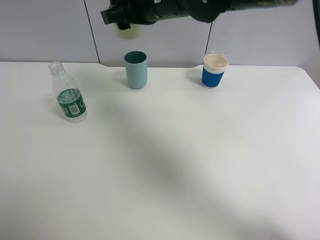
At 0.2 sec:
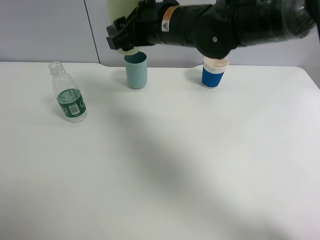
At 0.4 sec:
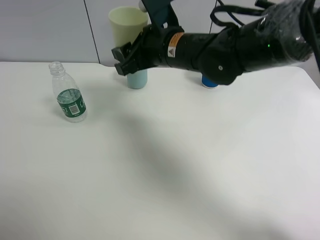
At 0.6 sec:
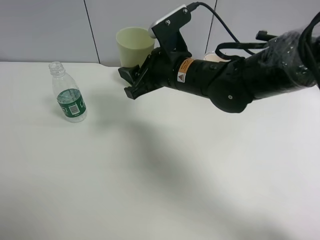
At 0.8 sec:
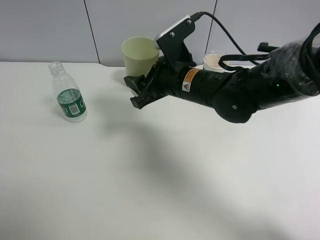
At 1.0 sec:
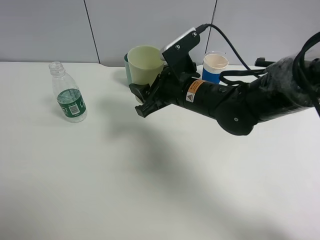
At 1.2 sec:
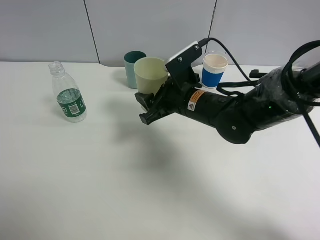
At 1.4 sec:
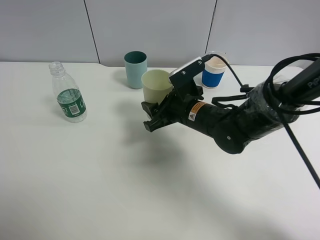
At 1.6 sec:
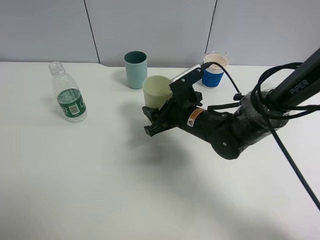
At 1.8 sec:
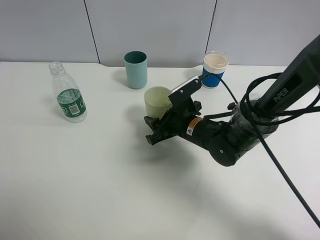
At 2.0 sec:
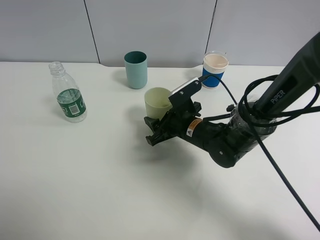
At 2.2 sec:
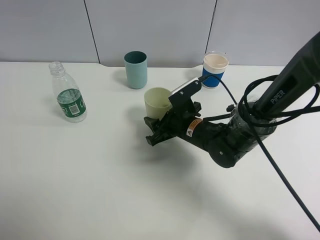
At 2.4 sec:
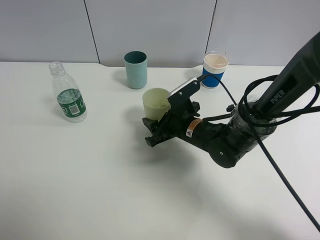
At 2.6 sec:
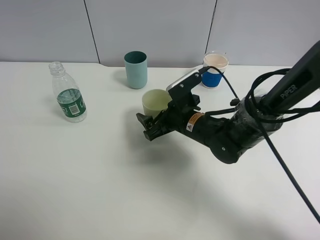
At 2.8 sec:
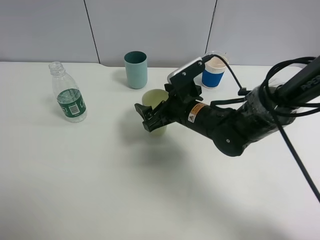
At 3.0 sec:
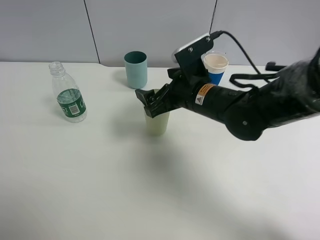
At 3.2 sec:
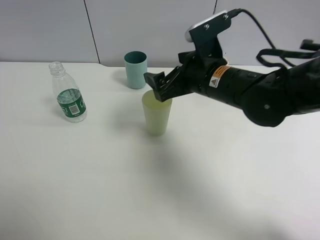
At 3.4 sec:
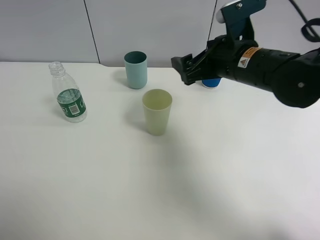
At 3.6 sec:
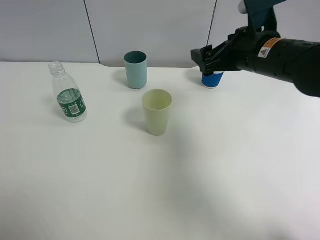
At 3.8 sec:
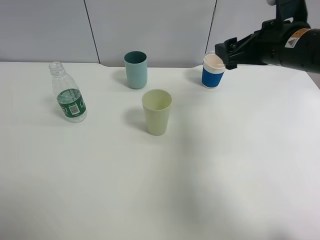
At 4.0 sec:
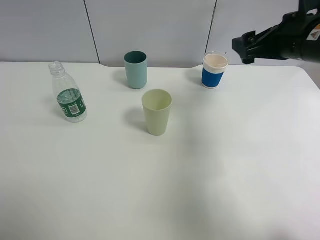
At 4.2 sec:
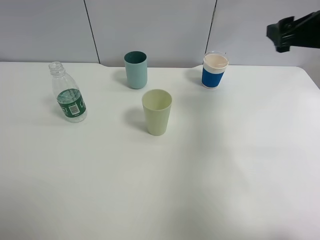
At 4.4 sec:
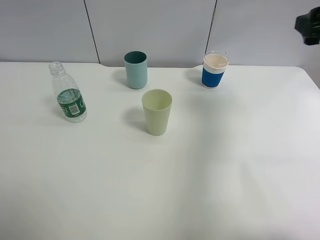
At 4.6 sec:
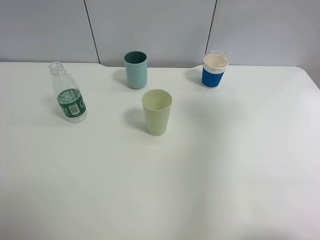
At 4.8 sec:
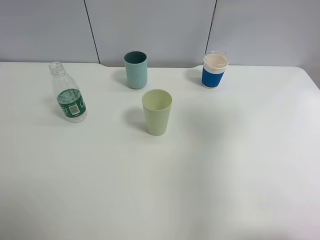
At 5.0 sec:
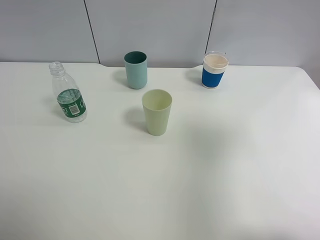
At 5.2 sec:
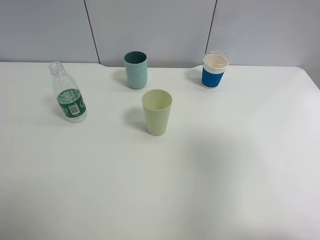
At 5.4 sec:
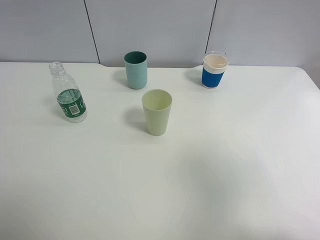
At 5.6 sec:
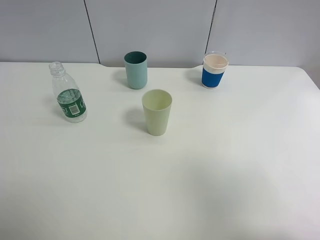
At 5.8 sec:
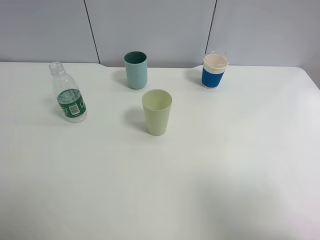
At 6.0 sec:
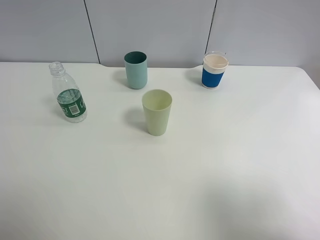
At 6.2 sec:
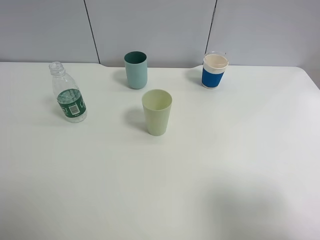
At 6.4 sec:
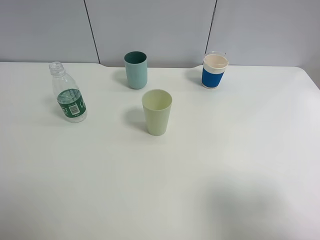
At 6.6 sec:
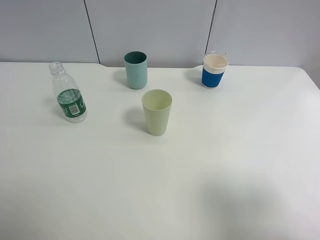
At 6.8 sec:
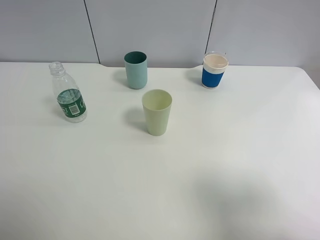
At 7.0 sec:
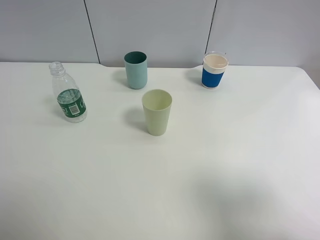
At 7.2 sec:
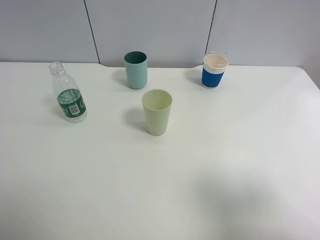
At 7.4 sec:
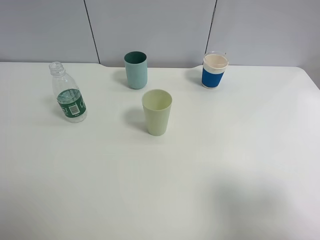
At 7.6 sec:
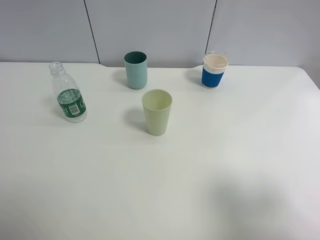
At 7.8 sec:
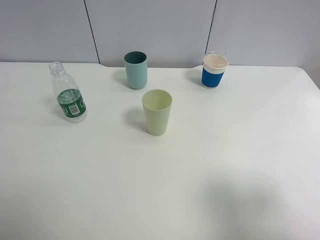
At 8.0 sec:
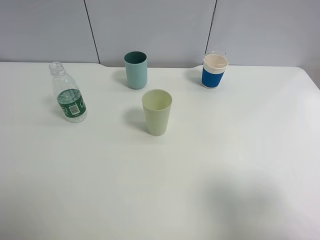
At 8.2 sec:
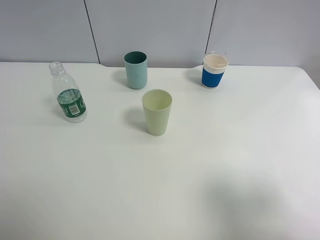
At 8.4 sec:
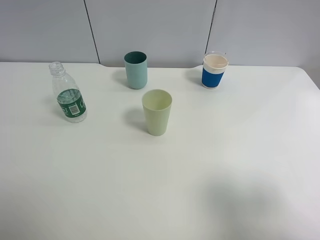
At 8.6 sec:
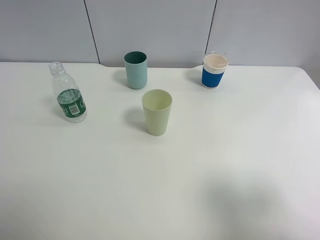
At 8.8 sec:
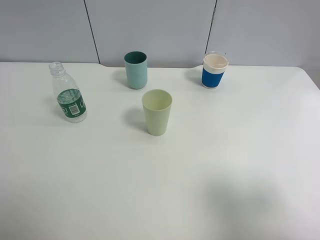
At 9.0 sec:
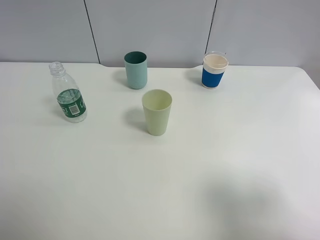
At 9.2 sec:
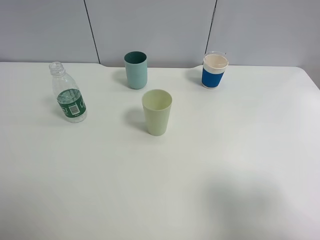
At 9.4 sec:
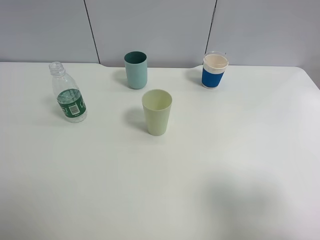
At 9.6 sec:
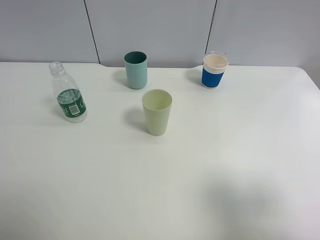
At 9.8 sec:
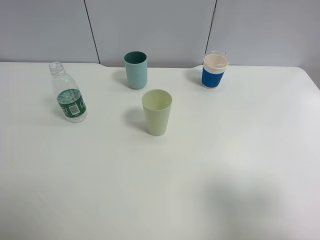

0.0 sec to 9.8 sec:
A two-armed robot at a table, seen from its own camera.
Task of the whole recording: use a clamp to hold the bottle of the drink, pour the beverage into a random cup, then clamp the cup containing the drink and pour the drink into another random cup.
Step, 0.0 sec to 3.0 sec: Place the green plastic cup on the table with right gripper.
0.0 sec to 1.4 sec: The right gripper heads downward, covering roughly 20 cm.
1.4 sec to 2.8 sec: The right gripper opens.
2.8 sec to 4.2 sec: The right gripper goes some 30 cm to the right and upward.
4.2 sec to 5.6 sec: The right gripper moves backward, about 25 cm.
8.4 sec to 9.8 sec: The two grippers keep their place.

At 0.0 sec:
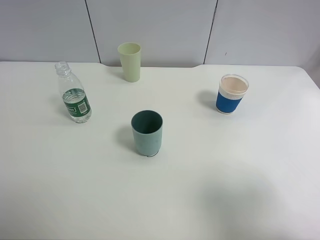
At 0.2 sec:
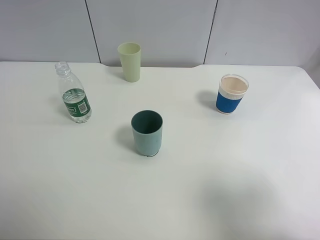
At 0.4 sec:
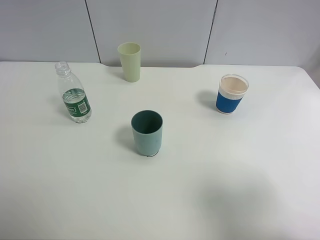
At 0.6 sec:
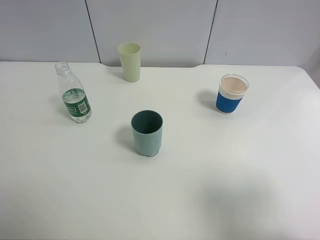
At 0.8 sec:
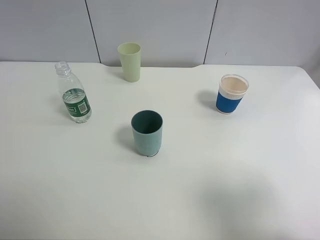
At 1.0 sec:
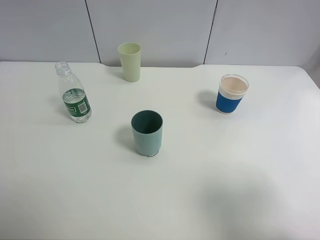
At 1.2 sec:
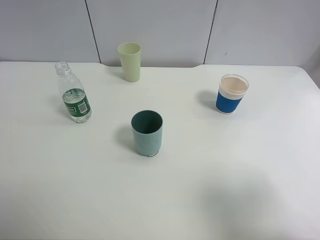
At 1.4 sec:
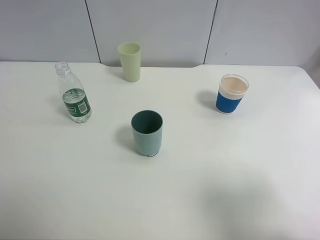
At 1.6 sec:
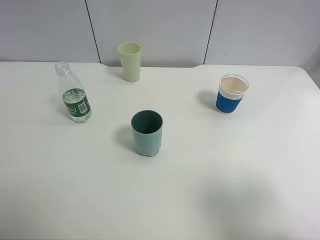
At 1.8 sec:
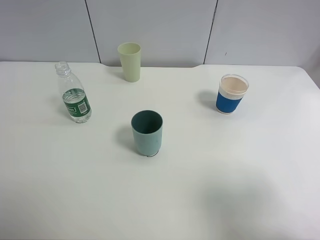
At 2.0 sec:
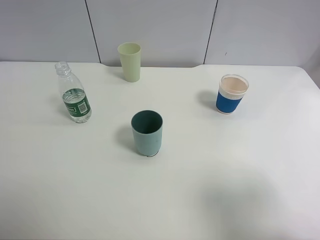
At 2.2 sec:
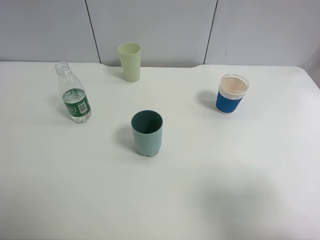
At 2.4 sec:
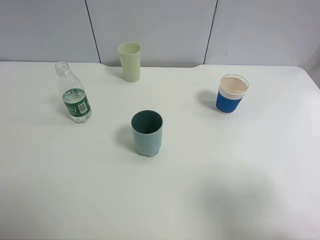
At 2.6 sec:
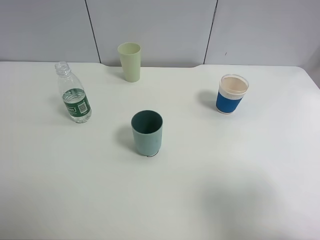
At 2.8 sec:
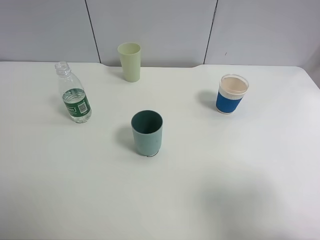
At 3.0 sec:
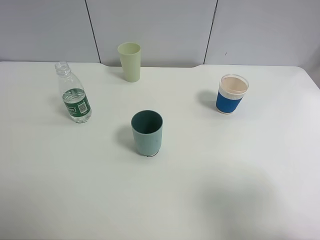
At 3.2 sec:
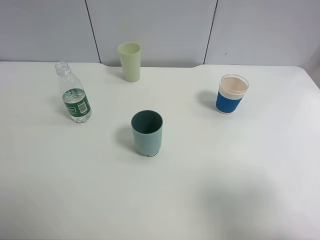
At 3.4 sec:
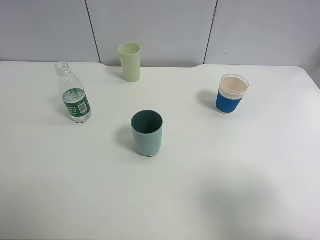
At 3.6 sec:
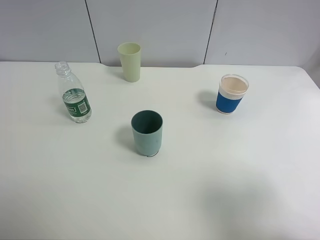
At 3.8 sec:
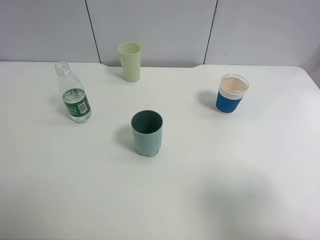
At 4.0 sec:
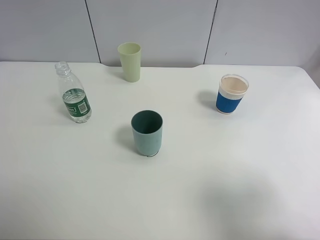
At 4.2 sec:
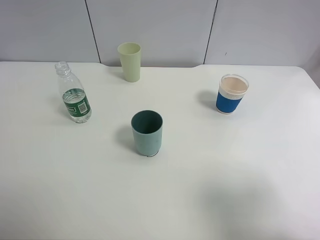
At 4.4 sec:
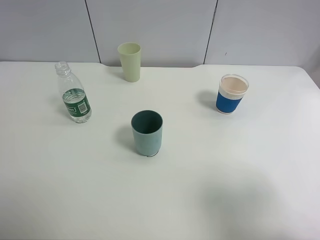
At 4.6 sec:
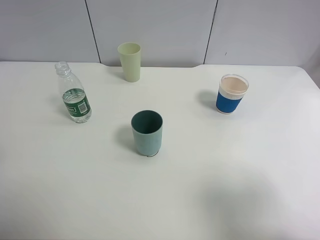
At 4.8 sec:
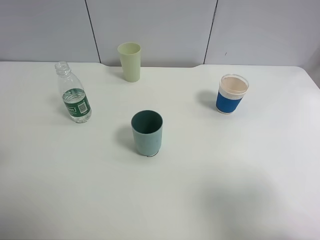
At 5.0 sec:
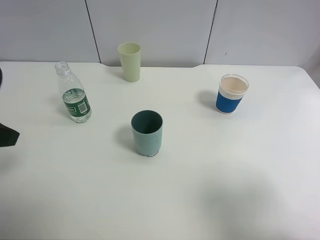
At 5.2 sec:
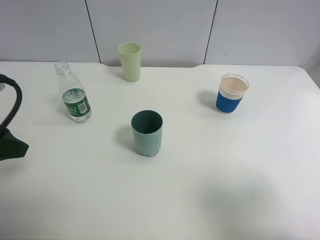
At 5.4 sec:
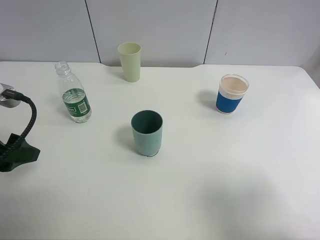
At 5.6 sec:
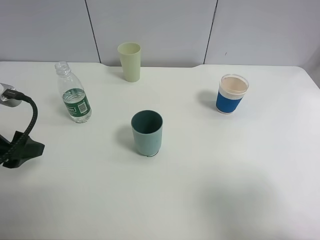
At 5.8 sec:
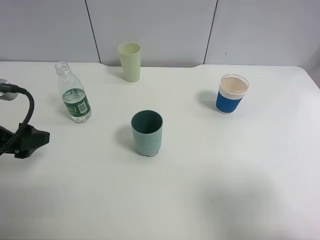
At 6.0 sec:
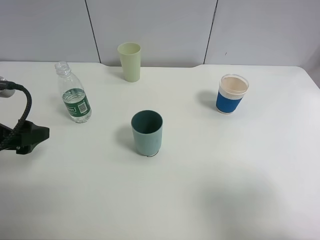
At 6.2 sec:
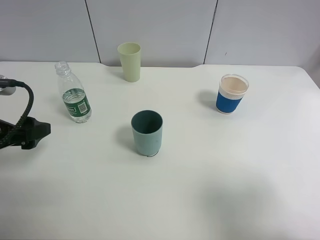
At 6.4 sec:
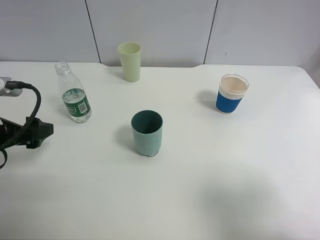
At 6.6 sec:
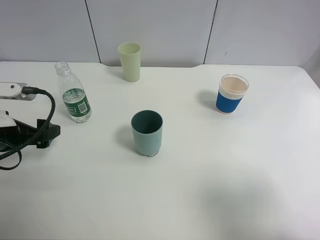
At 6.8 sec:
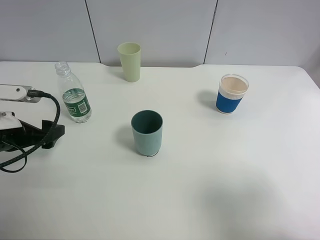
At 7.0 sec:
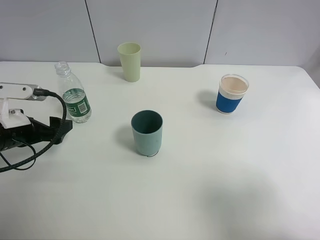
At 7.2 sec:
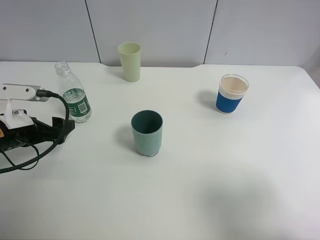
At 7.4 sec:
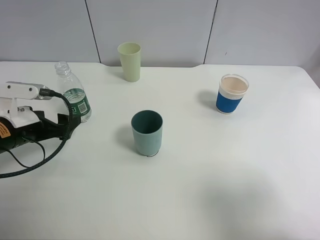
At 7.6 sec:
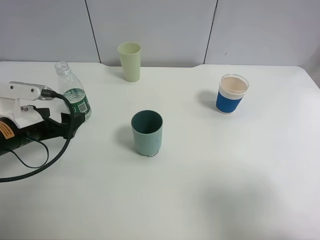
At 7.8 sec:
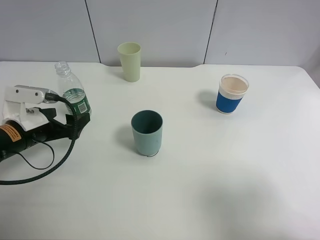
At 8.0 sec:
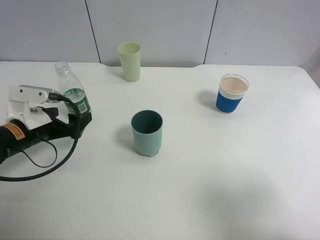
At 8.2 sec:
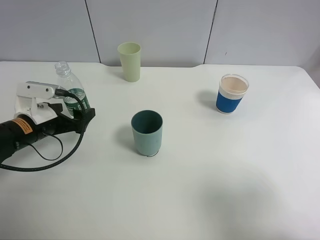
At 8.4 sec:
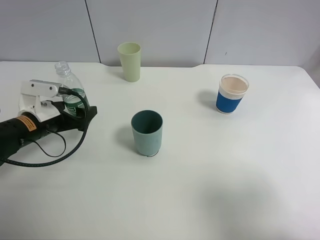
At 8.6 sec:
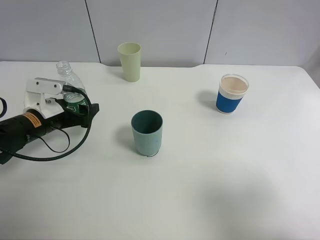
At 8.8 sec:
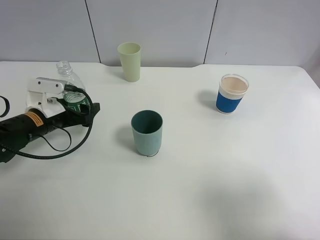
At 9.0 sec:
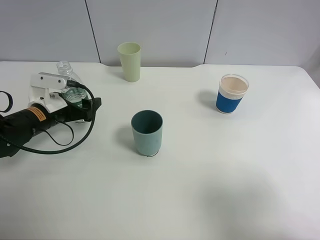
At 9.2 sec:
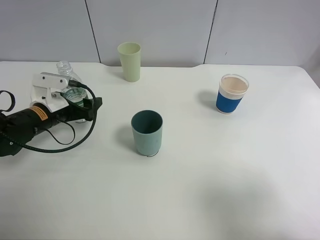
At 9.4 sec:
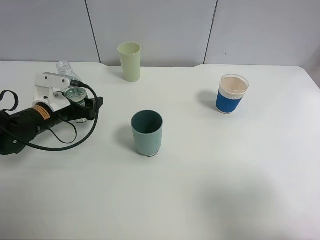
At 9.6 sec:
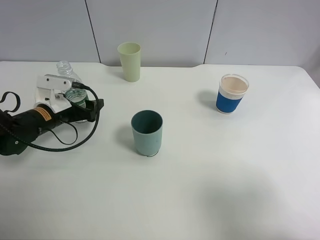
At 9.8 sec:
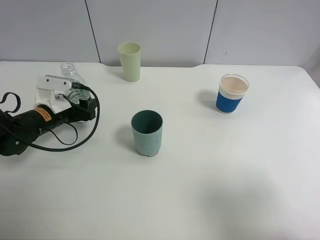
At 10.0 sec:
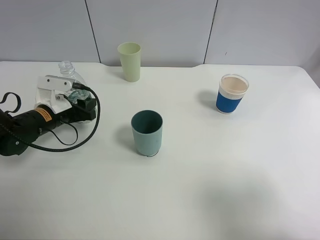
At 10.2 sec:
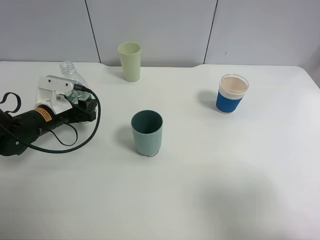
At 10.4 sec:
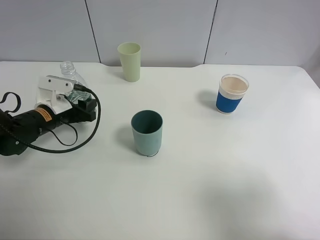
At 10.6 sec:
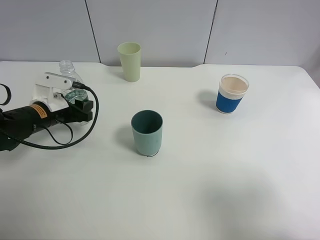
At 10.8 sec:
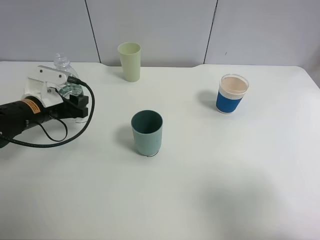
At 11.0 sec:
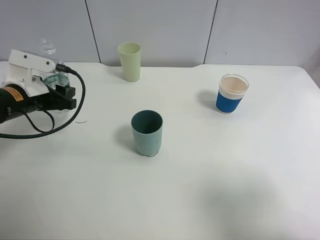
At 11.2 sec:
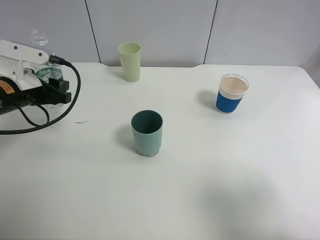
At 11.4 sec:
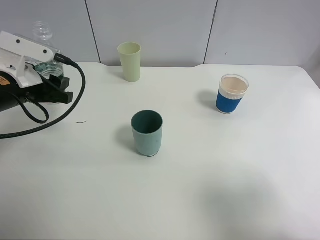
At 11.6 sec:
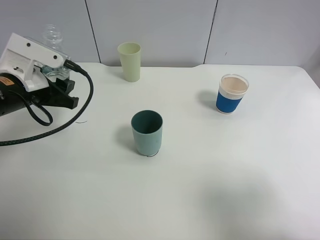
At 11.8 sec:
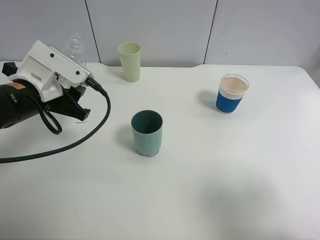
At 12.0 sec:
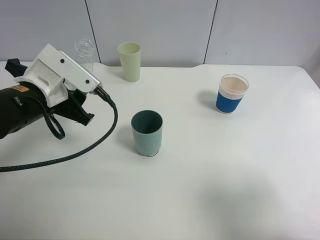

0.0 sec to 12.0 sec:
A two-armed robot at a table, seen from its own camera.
Task of the whole recording: use a clamp to hold the bottle of the drink, pour the beverage into a random cup, then clamp the cup containing the drink and pour the drink into another random cup.
Step, 0.0 sec to 10.8 sec: Pick up the water bottle with left gripper.
0.0 sec to 3.0 sec: Neither gripper changes place.
4.4 sec to 6.0 sec: The left gripper shifts roughly 15 cm downward and forward.
6.0 sec to 7.6 sec: The left gripper travels downward and forward by approximately 10 cm.
7.6 sec to 9.0 sec: The left gripper travels forward by roughly 5 cm.
9.0 sec to 10.4 sec: The left gripper closes its fingers.
10.4 sec to 12.0 sec: The left gripper moves upward, backward and to the right, roughly 15 cm.
